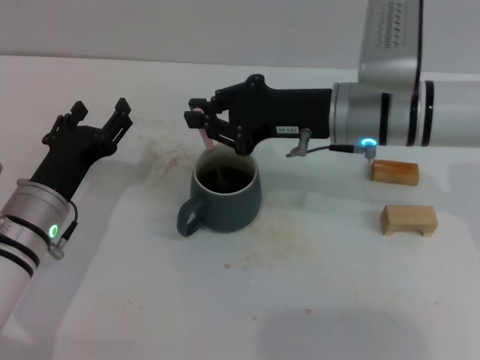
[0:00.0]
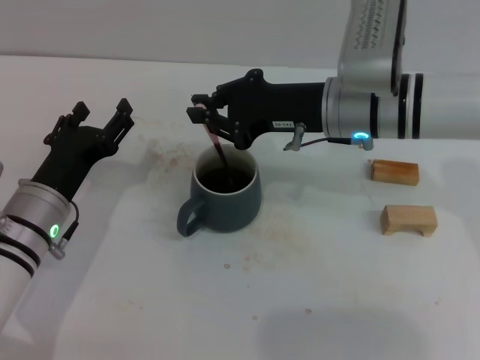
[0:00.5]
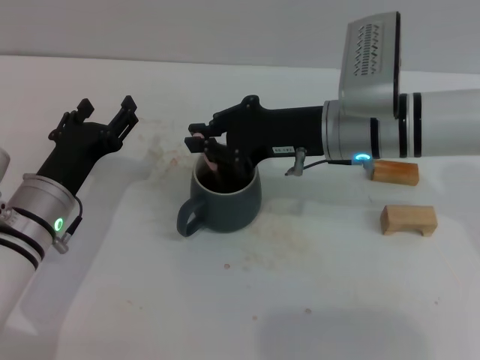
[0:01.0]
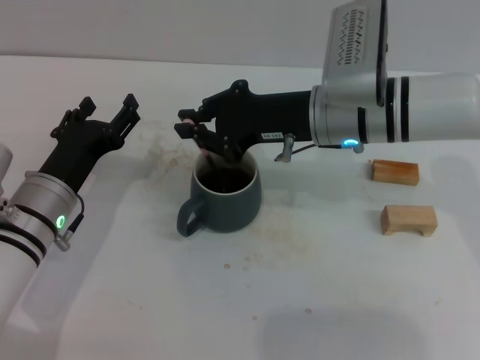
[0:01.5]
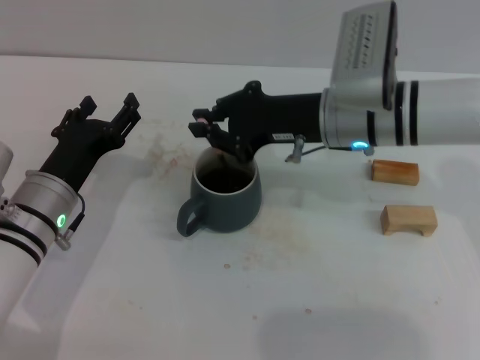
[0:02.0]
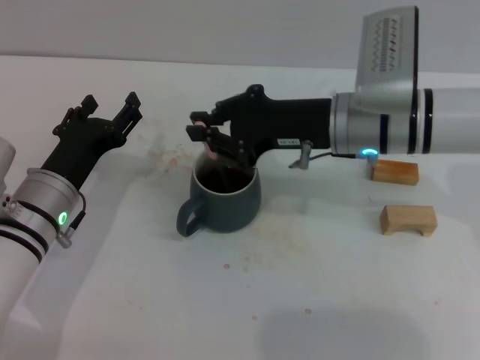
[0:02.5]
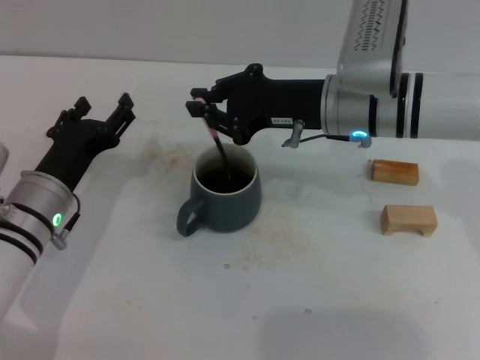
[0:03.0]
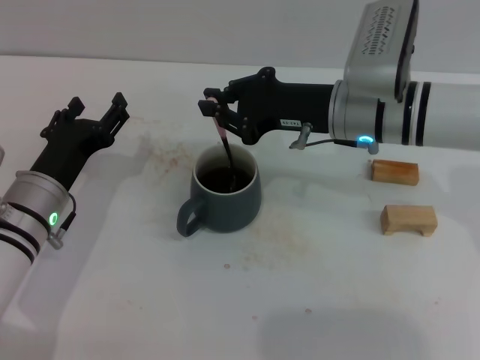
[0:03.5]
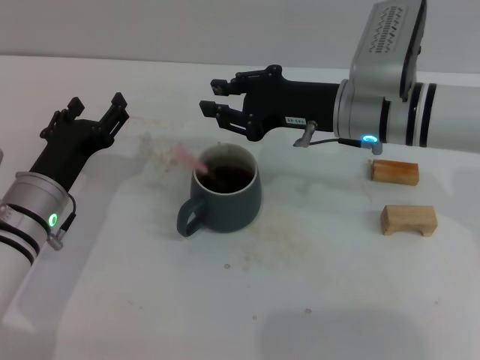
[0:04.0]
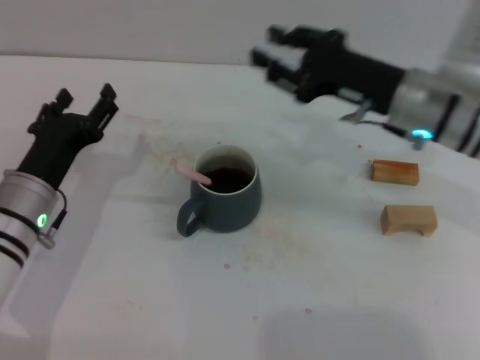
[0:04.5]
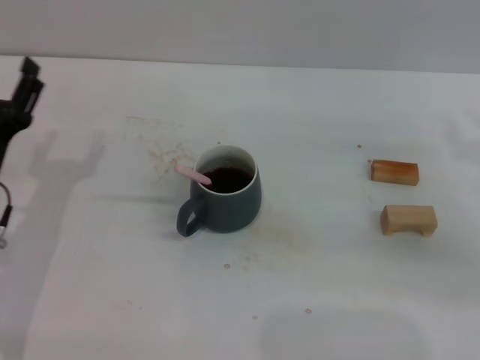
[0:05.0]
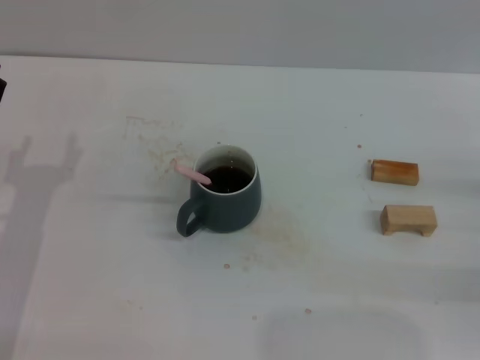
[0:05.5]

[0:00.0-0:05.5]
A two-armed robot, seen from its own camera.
Task of the whole recording: Move the grey cup to the center, lift the pink spoon, stir it three times in the cup, and put the spoon into the cup.
Step, 0:00.0 to 0:04.0: Stir the coffee in the cup with the right gripper.
0:00.0 to 0:03.5: The grippers make only small movements.
0:03.5 to 0:05.5: The right gripper heads to the right and backward, covering about 30 cm, and opens its fingers. The left gripper travels to the left by about 5 cm.
